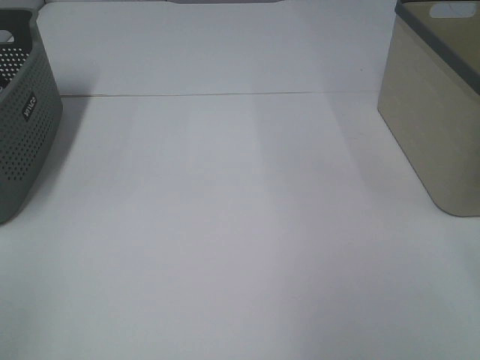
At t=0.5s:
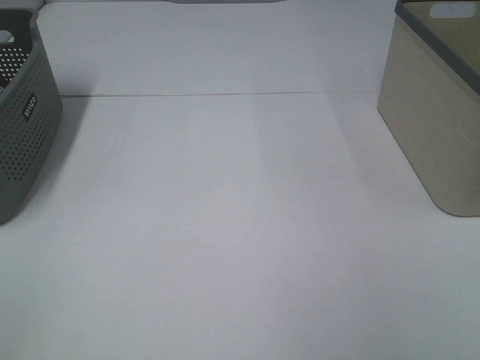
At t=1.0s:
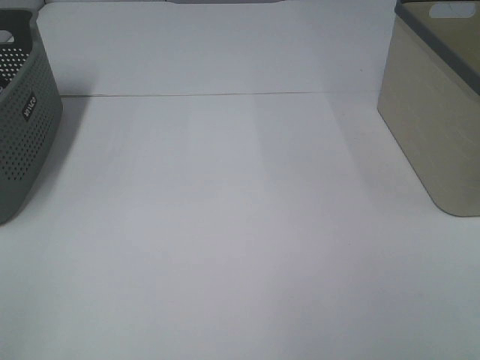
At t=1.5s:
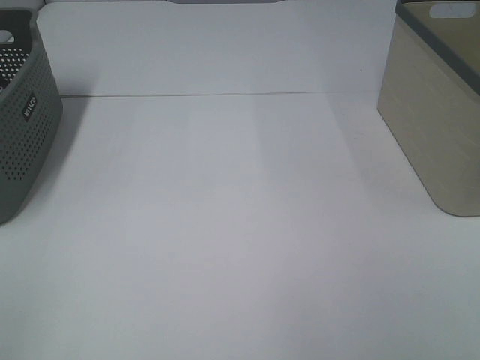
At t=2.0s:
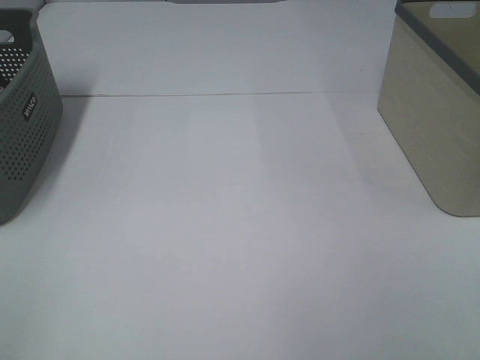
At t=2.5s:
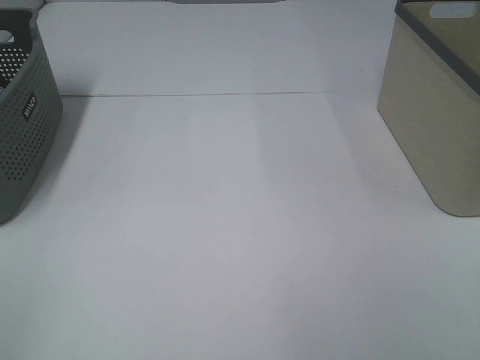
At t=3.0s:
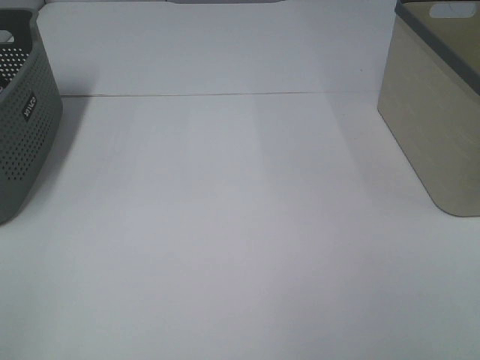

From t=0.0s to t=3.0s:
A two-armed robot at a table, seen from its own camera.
From t=1.5s to t=3.0s: Both grippers stay about where they are.

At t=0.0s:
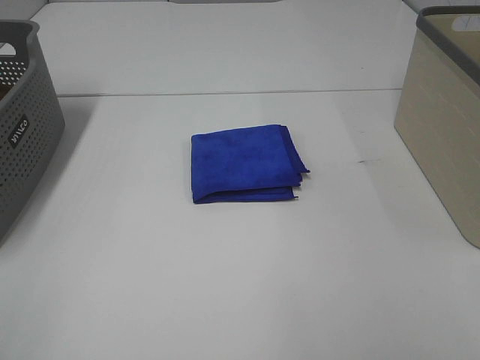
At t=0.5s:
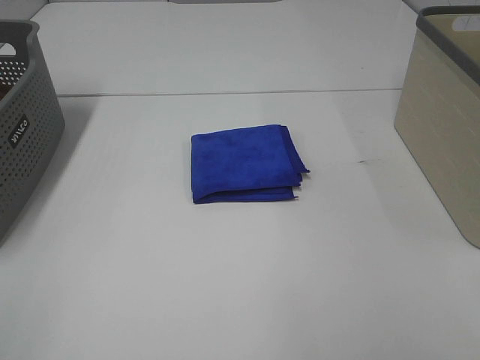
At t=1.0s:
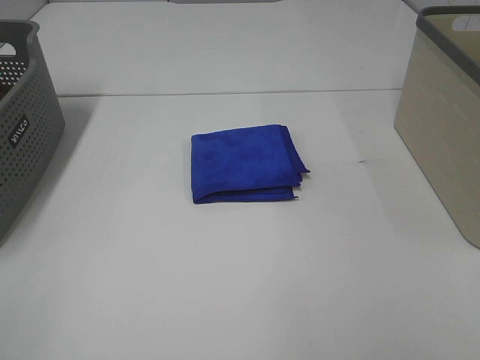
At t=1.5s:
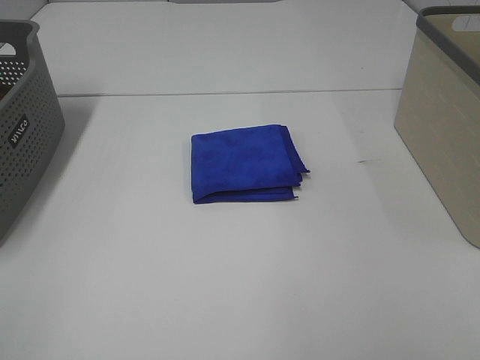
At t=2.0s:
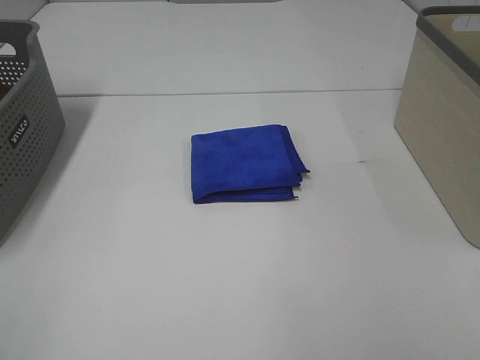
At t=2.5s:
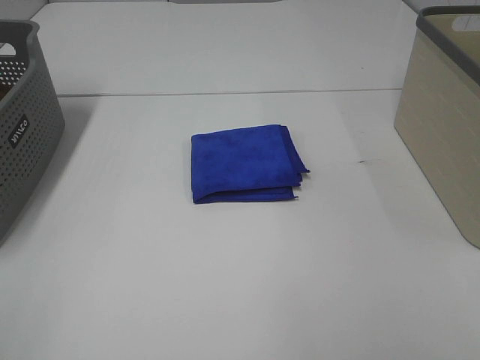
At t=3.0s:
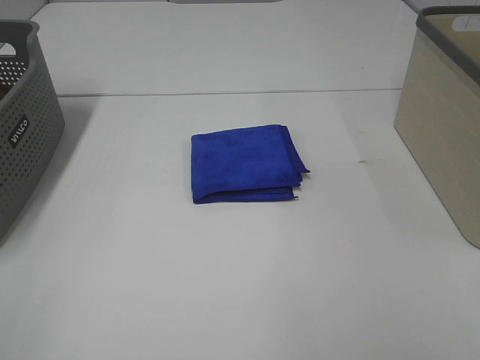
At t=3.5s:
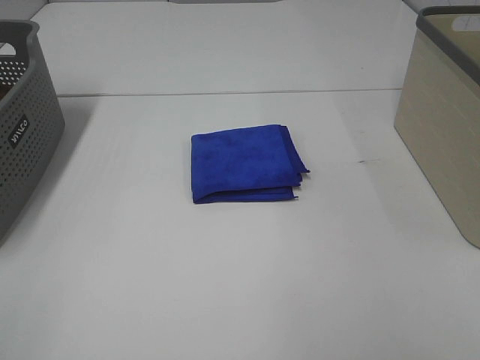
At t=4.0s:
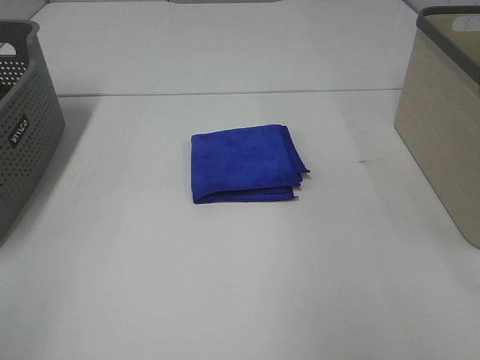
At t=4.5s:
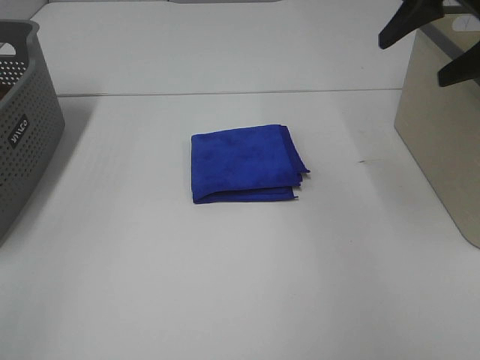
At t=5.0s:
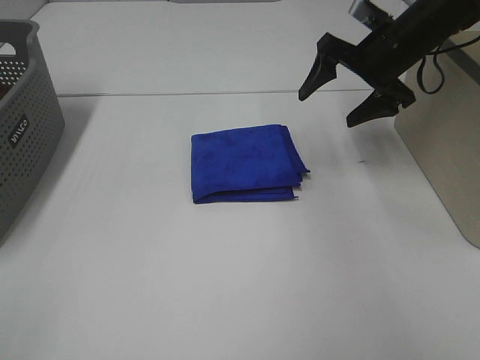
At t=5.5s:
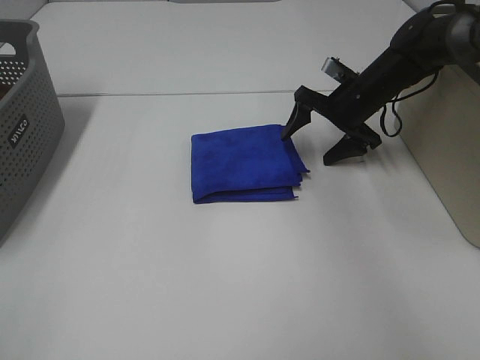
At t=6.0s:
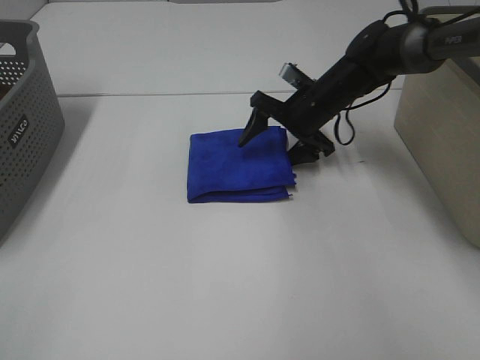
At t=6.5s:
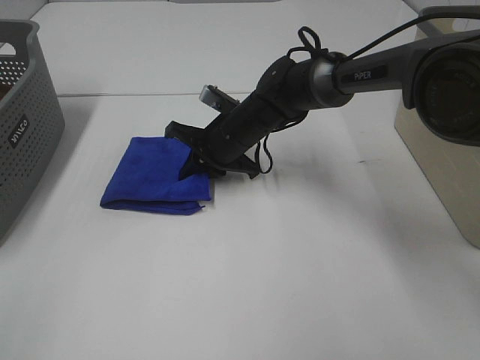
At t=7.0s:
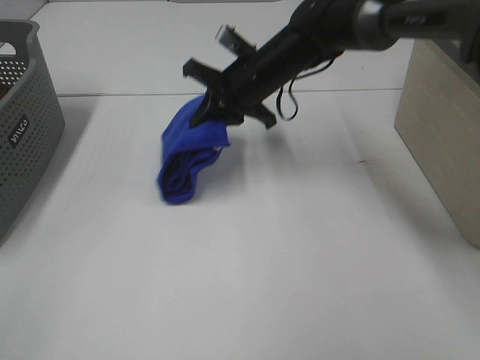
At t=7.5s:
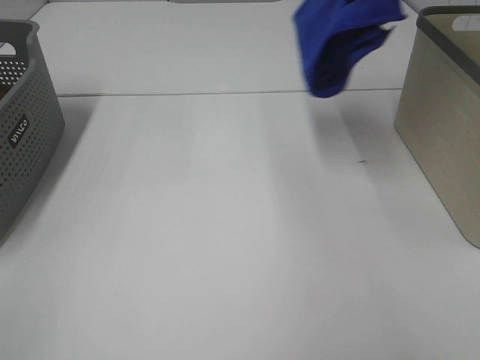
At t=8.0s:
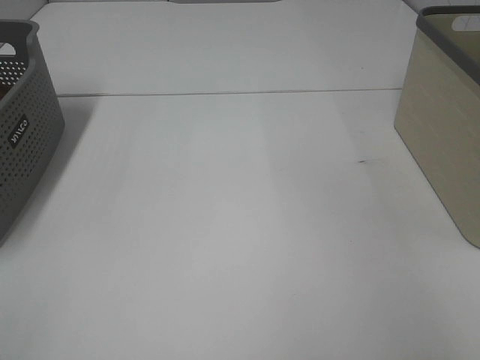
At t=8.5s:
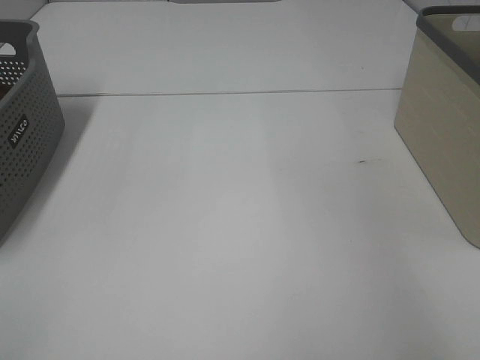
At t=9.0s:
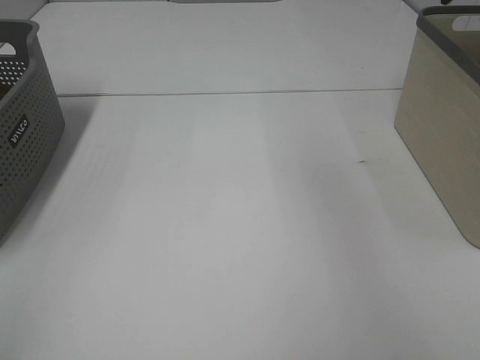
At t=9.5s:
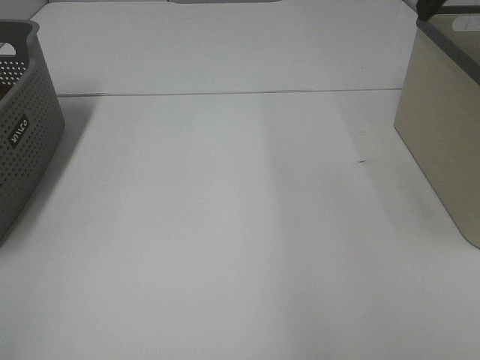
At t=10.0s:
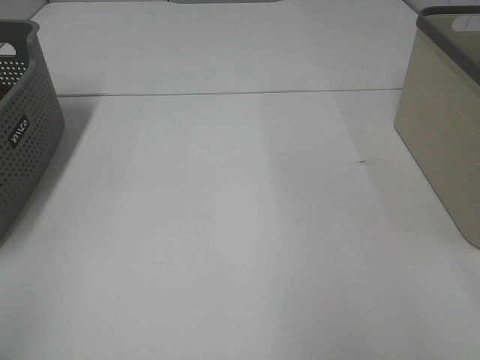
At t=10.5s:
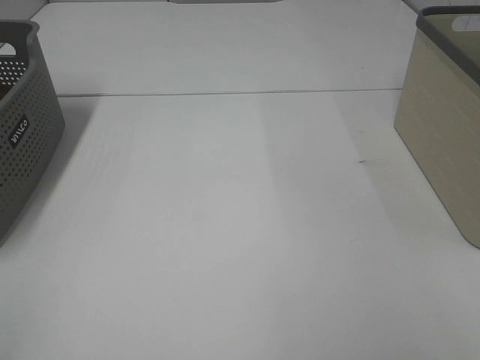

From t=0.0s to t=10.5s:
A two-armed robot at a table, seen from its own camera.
Step, from t=0.0s to t=6.0s: Right hand: grab the folded blue towel.
Step, from t=6.5s to t=8.5s: Right hand: place the blue towel in right basket.
From t=0.0s to t=2.0s: Both grippers stay put.
From t=4.0s to t=6.5s: The right gripper goes approximately 40 cm downward, to the left and forward, and closes up.
From t=6.5s to t=8.5s: The right gripper heads to the right and upward, covering some 50 cm, and opens.

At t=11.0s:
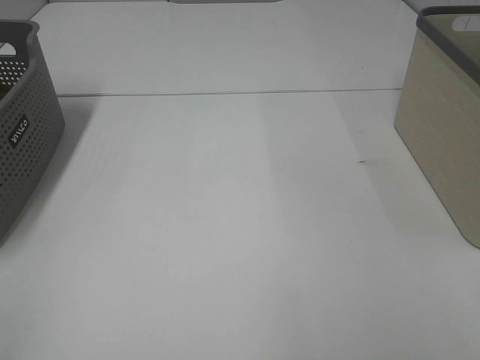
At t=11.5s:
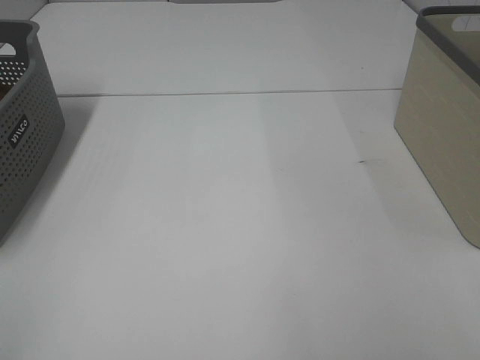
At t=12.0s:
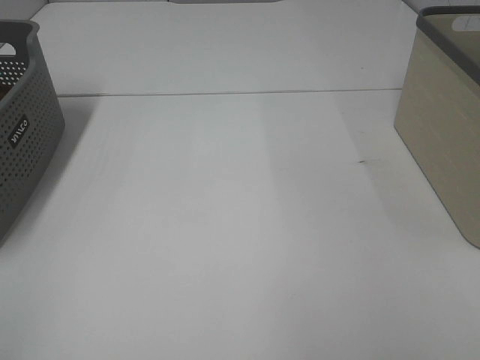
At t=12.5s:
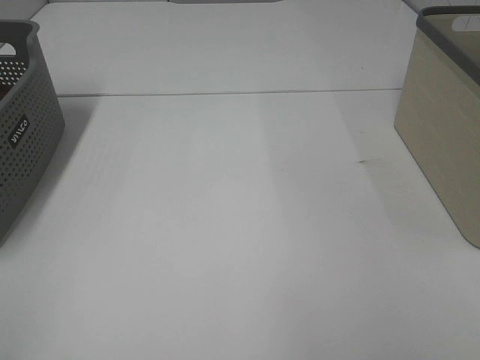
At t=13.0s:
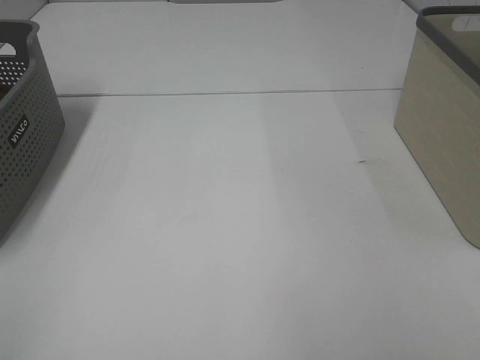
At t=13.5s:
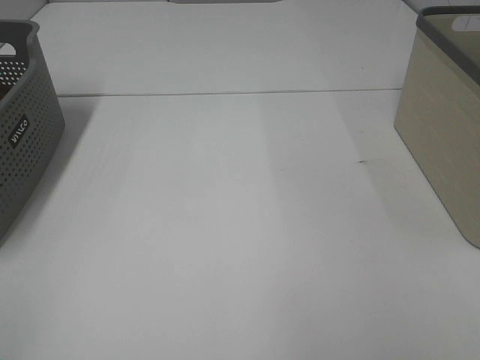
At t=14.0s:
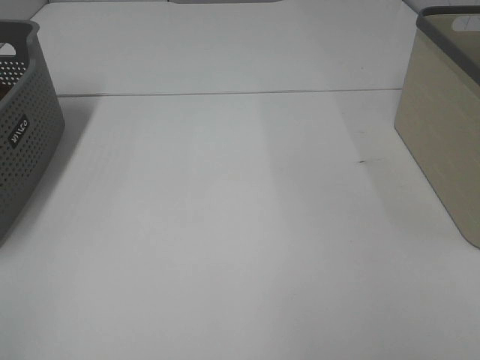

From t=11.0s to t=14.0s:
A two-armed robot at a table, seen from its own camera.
From t=12.5s to t=14.0s: Neither gripper changes place.

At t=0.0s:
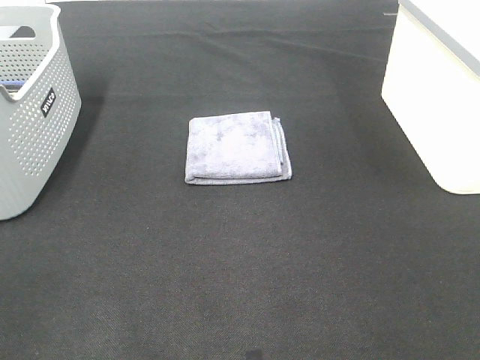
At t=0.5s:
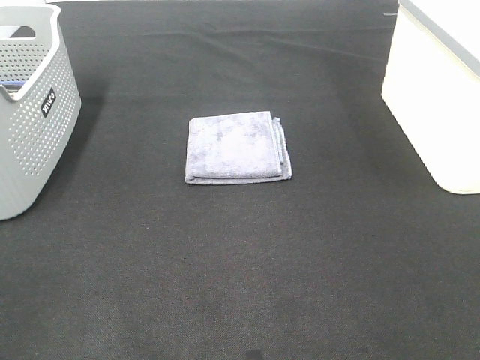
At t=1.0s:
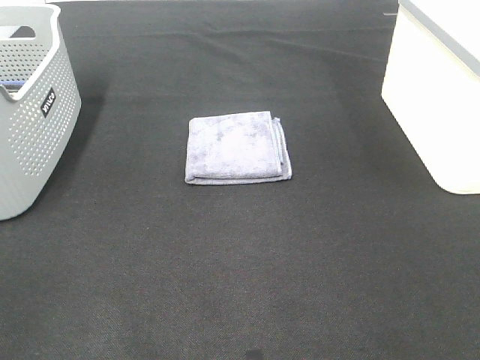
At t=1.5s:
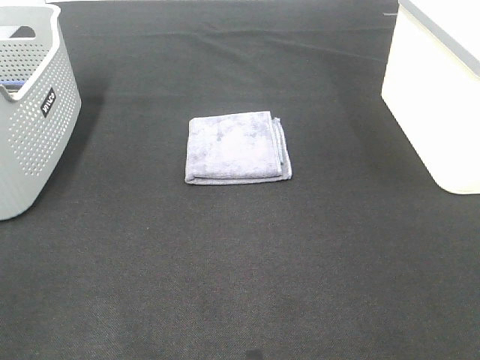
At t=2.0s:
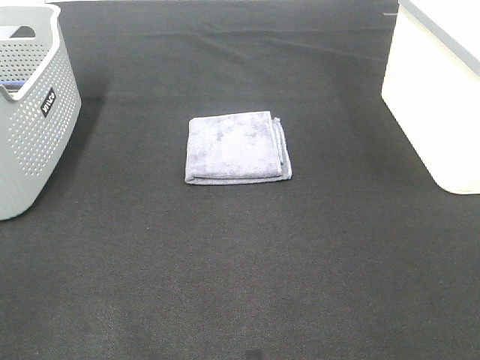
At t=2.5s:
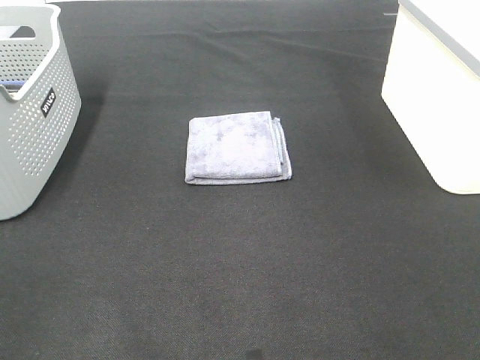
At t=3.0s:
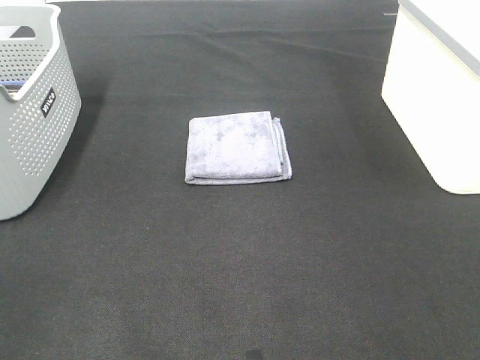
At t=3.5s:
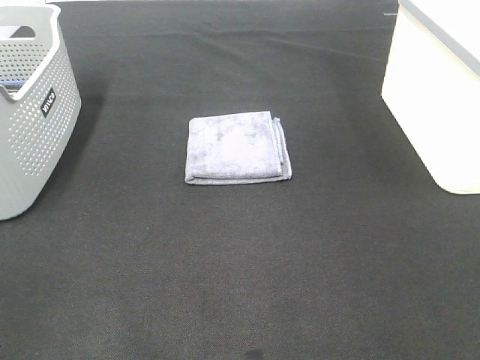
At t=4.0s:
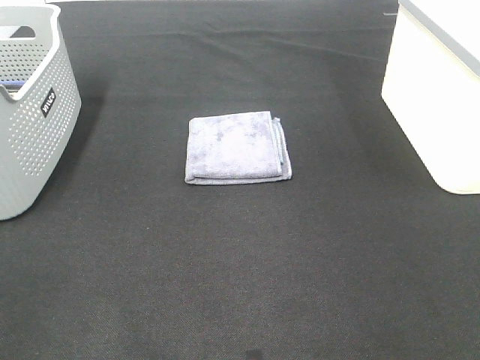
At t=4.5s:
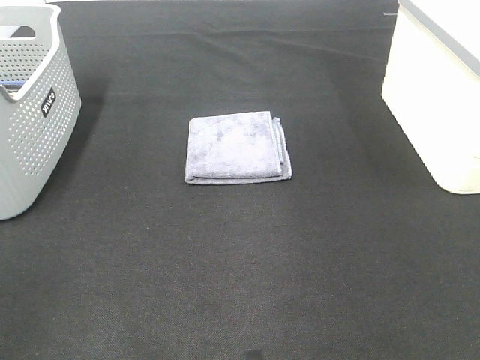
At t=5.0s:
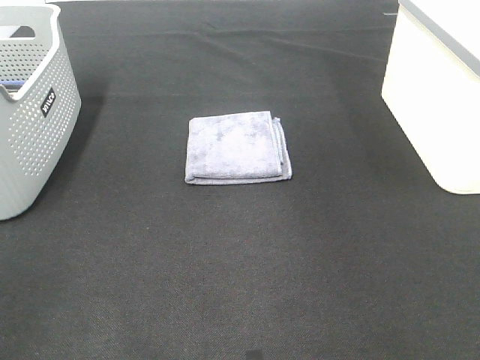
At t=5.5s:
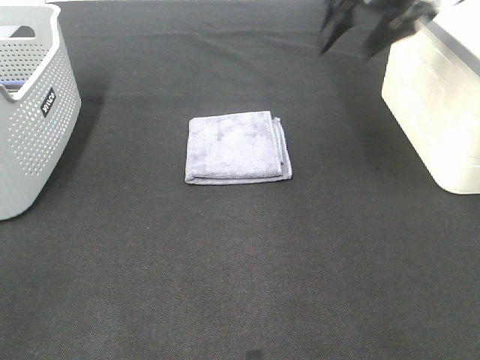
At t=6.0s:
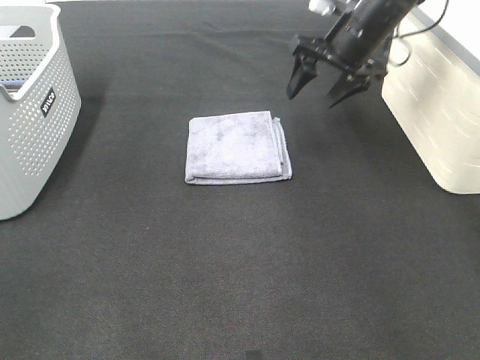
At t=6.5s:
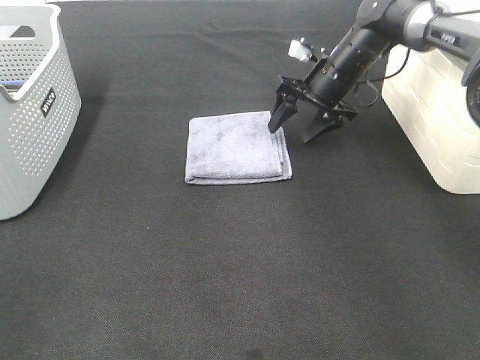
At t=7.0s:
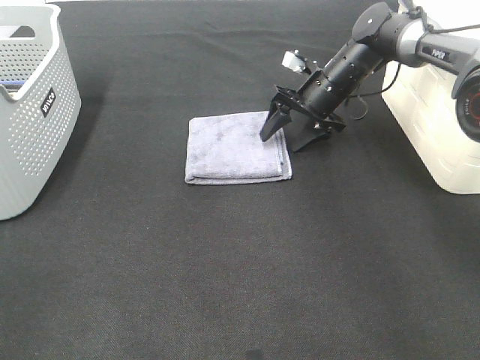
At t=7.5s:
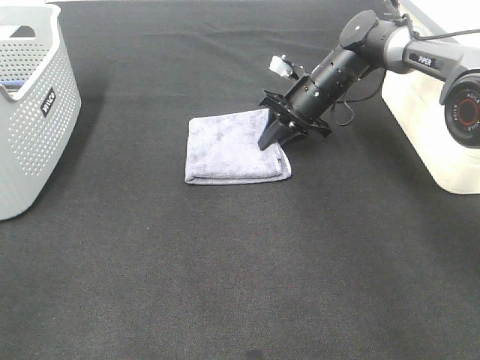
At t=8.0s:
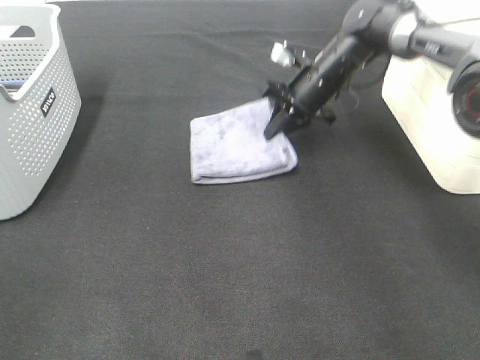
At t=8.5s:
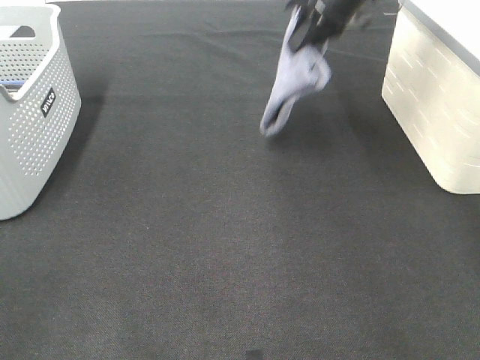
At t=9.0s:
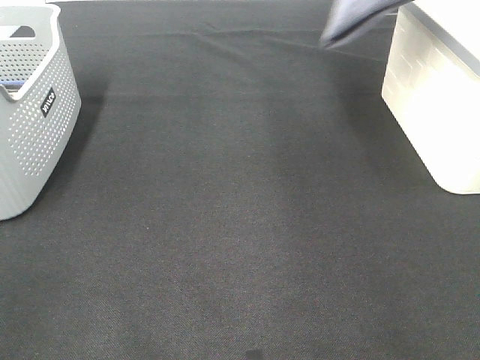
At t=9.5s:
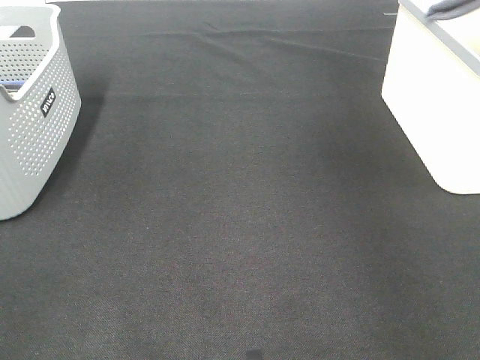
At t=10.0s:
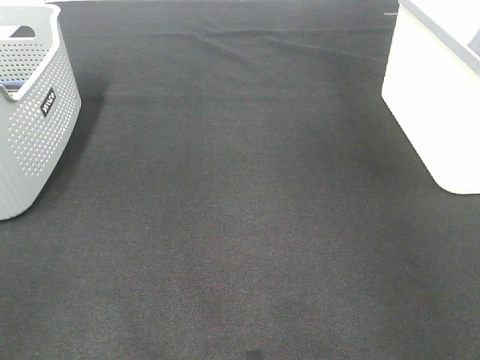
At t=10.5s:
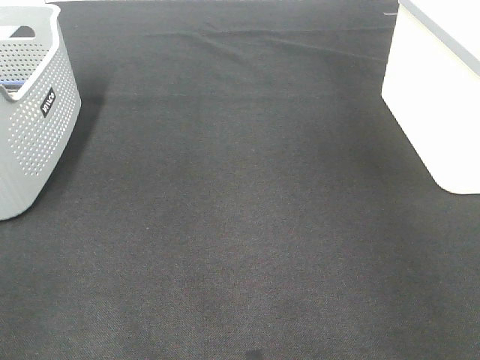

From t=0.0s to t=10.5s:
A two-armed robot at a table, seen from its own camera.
Step, from t=0.0s to t=7.5s: Right hand: grab the folded grey towel.
Step, from t=8.0s to t=10.0s: Right hand: place the grey towel in right basket.
From t=0.0s to t=2.0s: The two grippers keep their place.
From t=4.0s to t=6.5s: The right gripper shifts some 50 cm forward and downward.
From t=6.5s to t=8.5s: The right gripper travels upward by some 15 cm, and closes its fingers.
From t=8.5s to t=10.5s: The right gripper moves to the right, roughly 25 cm, and opens.
